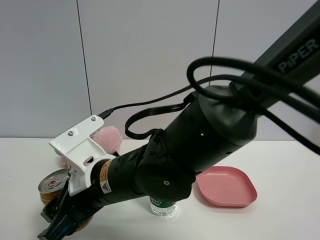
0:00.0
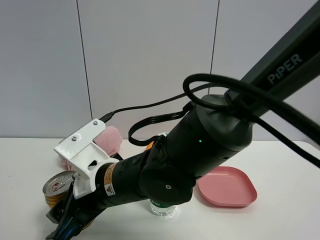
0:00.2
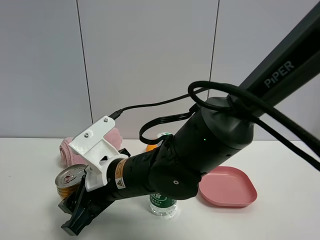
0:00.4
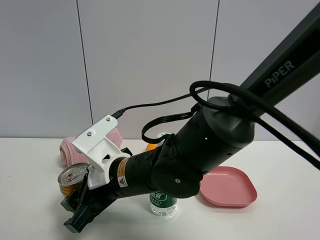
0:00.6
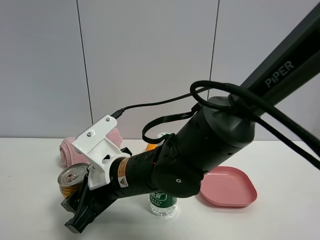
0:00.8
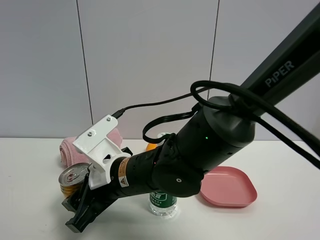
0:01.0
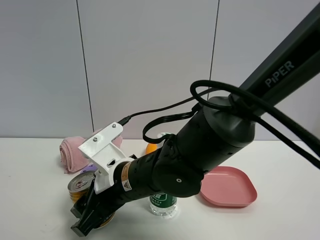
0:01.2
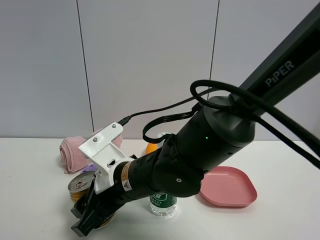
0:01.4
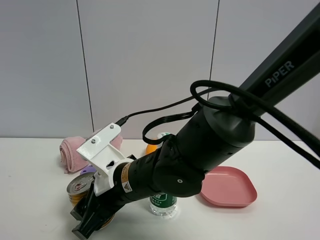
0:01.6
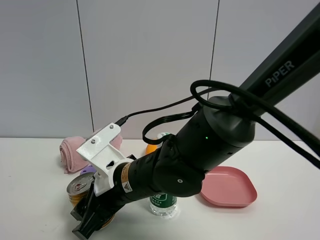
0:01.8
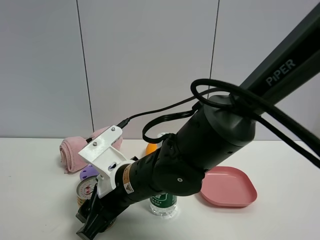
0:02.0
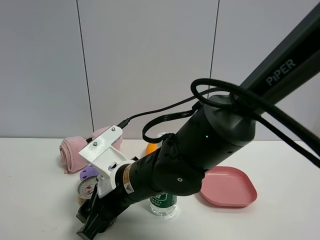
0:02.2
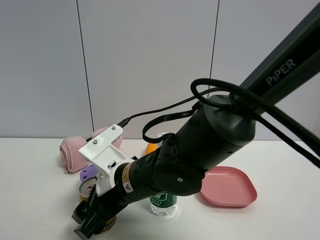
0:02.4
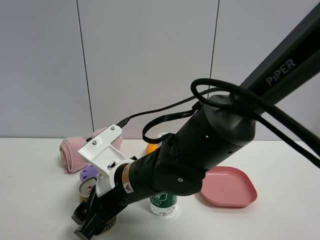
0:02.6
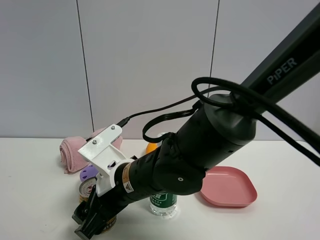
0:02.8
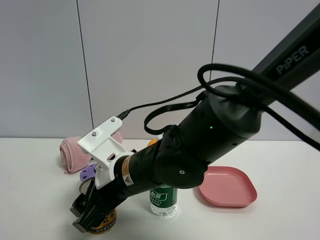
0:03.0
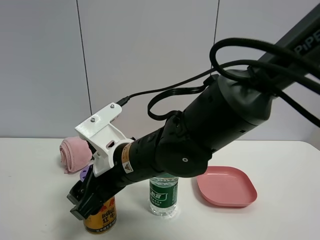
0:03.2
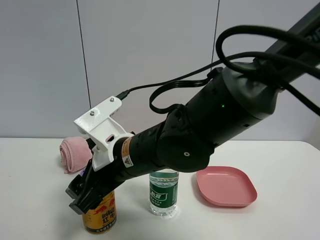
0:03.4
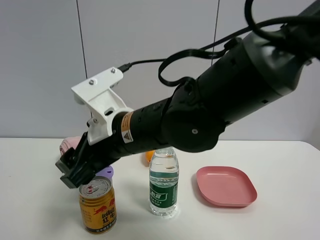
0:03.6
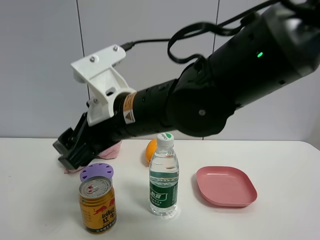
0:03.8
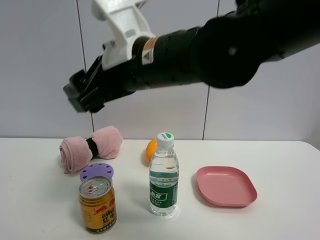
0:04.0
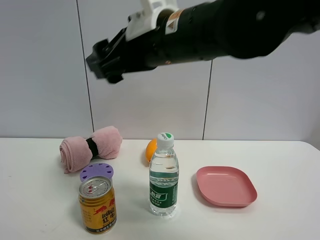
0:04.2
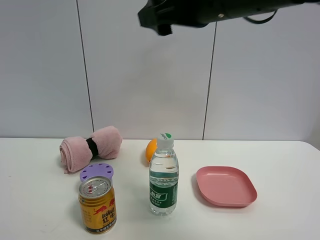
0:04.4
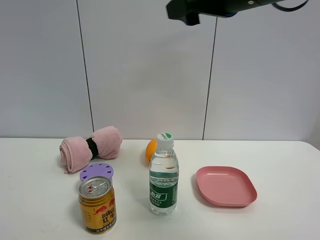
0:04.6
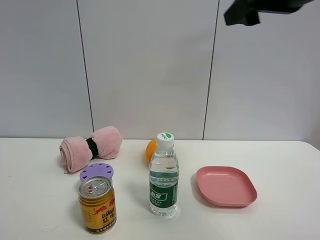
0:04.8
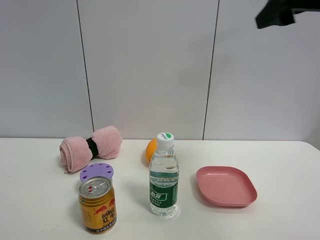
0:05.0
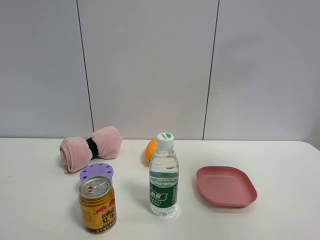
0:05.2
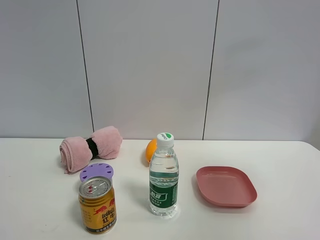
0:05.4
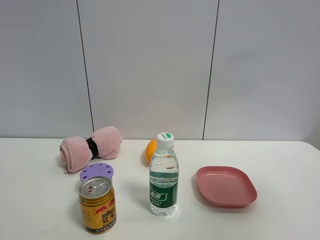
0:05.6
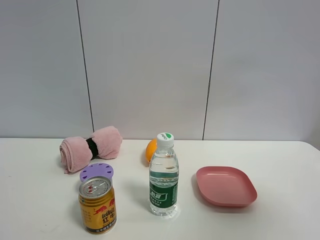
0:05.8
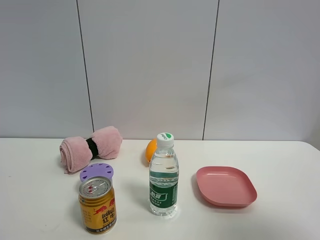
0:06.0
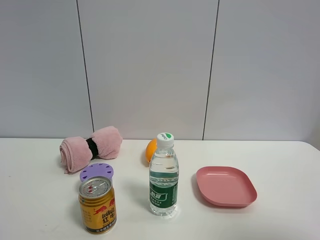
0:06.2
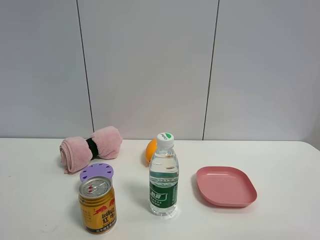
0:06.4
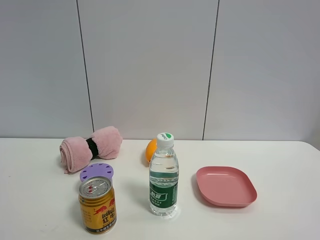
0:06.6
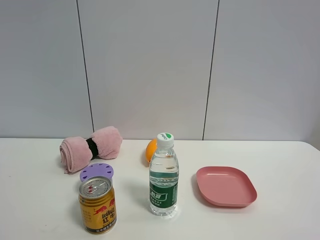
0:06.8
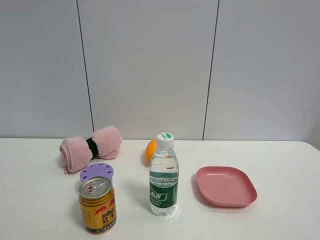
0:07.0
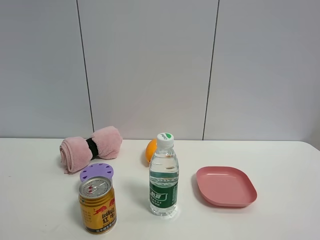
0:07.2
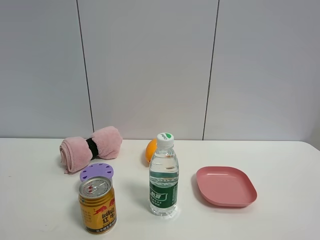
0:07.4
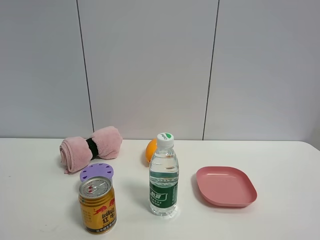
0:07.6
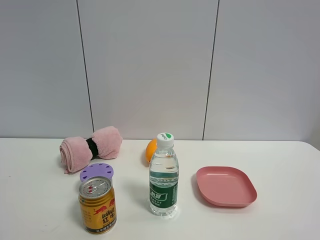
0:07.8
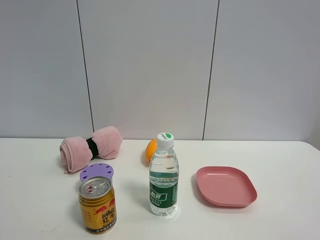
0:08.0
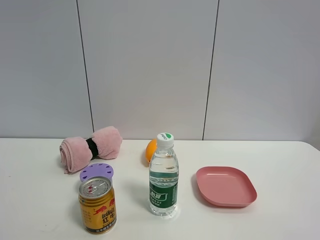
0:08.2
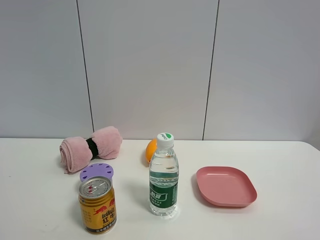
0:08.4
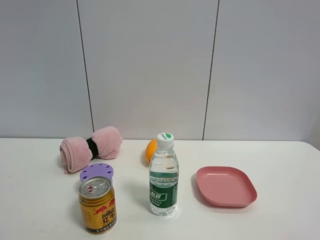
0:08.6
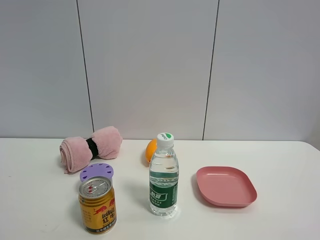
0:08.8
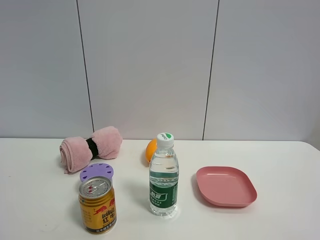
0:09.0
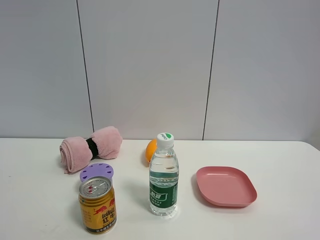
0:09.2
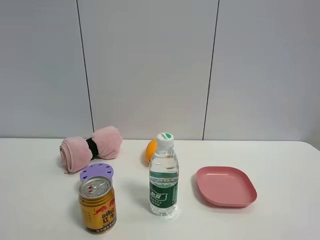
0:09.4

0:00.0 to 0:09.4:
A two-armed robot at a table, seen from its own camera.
Task of the whole recording: the gripper move the object.
Step, 0:00.0 to 0:03.0: Place the red bull on the table with the right gripper.
0:03.2 to 0:04.8: The right gripper shifts about 35 cm upward and to the right.
0:04.8 to 0:06.2: The right gripper travels backward and to the right by some 25 cm.
0:06.2 to 0:07.8: The right gripper moves downward, about 10 cm, and opens its fingers.

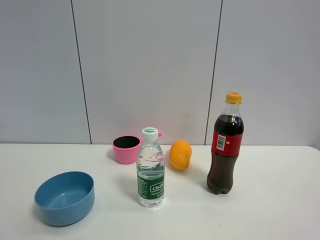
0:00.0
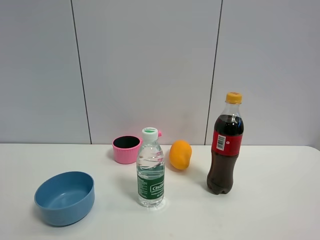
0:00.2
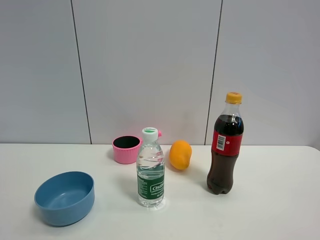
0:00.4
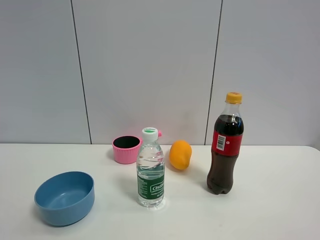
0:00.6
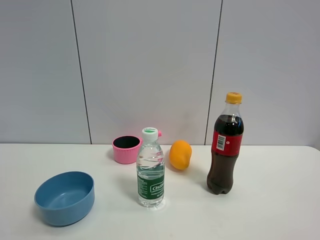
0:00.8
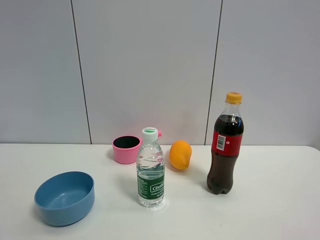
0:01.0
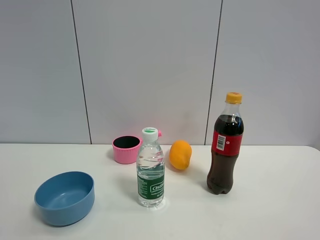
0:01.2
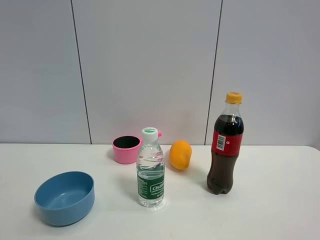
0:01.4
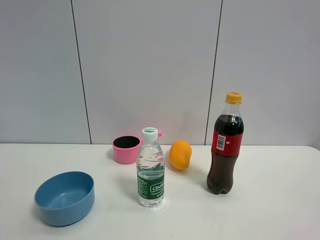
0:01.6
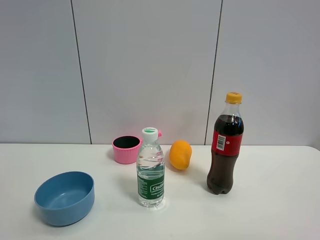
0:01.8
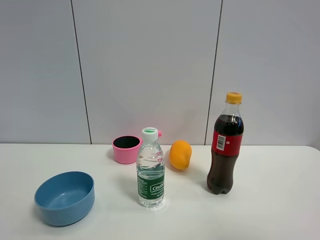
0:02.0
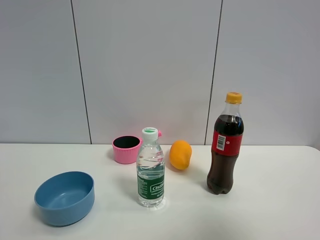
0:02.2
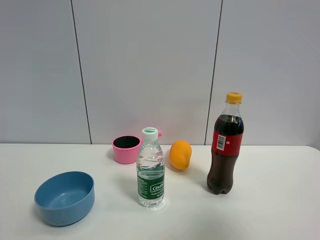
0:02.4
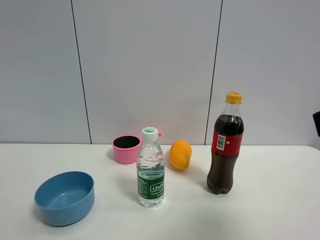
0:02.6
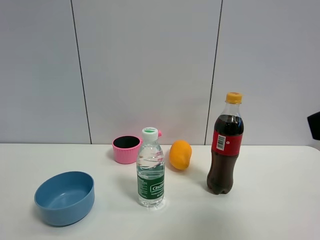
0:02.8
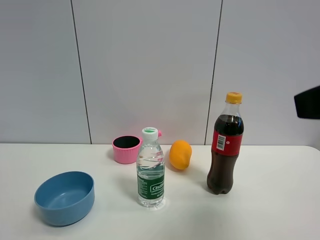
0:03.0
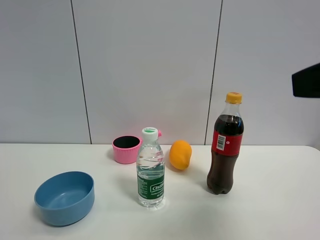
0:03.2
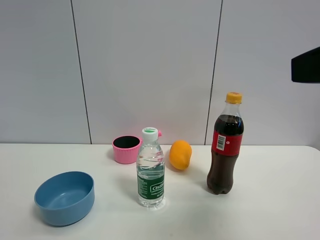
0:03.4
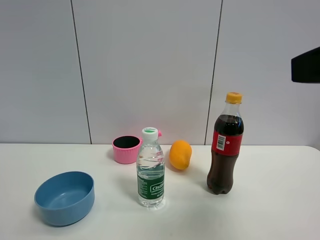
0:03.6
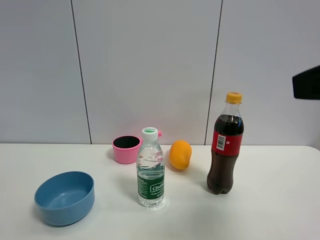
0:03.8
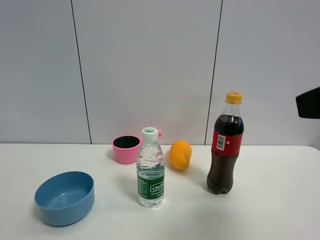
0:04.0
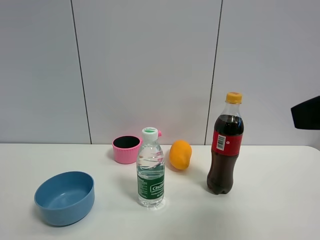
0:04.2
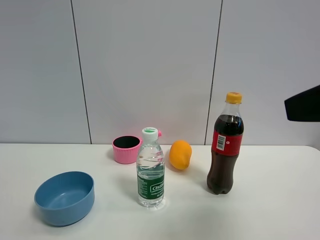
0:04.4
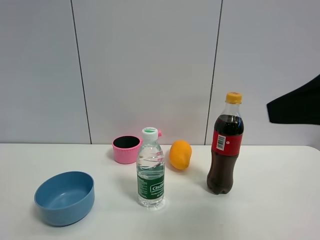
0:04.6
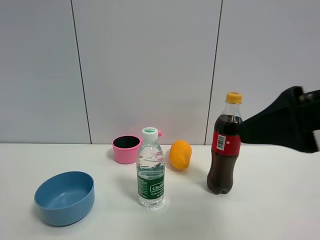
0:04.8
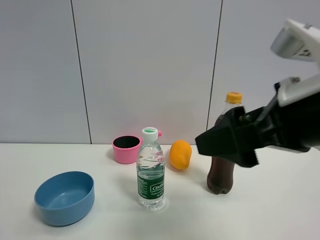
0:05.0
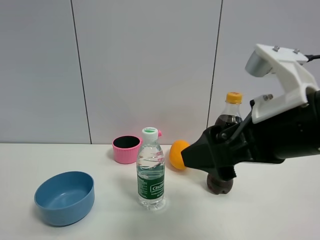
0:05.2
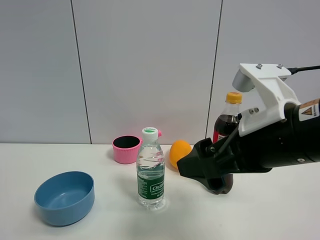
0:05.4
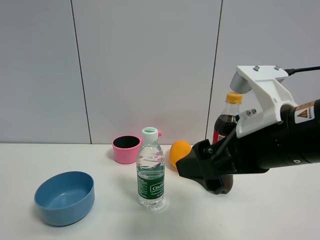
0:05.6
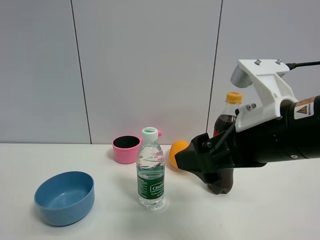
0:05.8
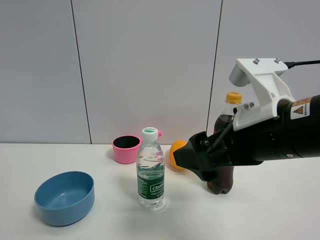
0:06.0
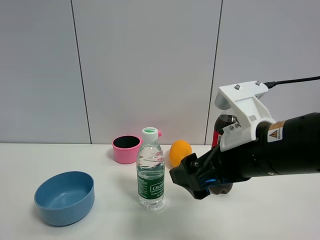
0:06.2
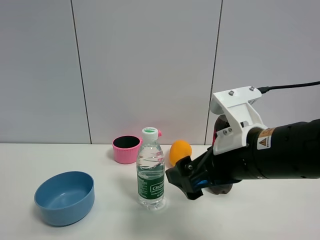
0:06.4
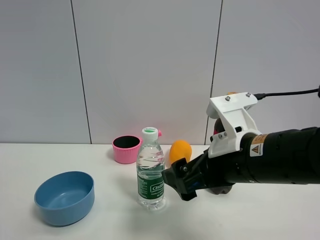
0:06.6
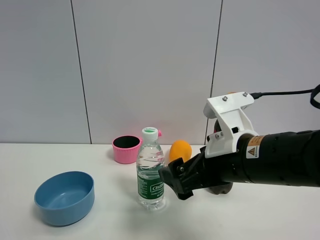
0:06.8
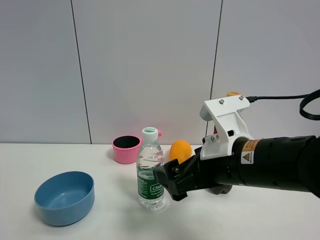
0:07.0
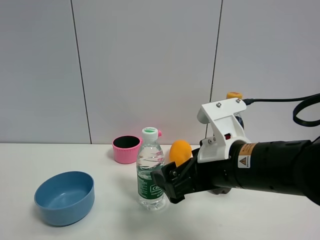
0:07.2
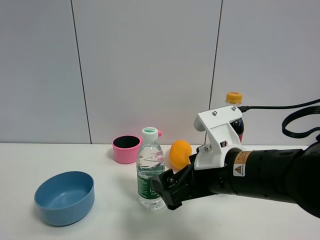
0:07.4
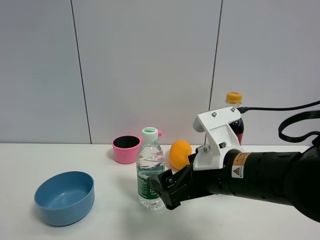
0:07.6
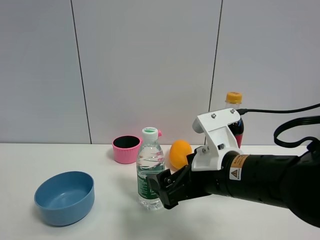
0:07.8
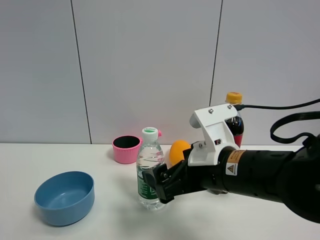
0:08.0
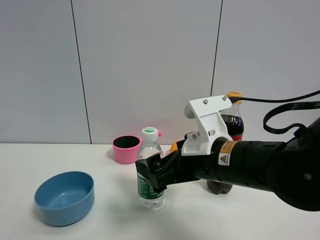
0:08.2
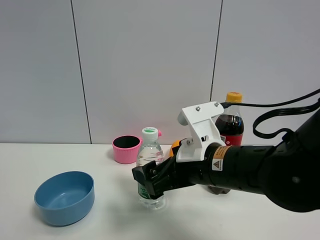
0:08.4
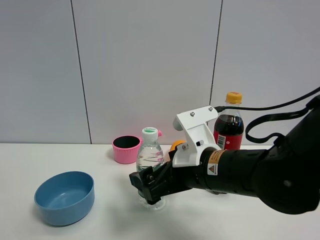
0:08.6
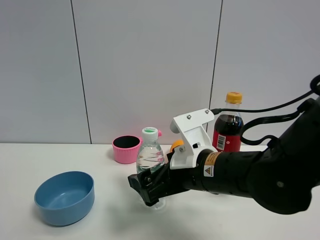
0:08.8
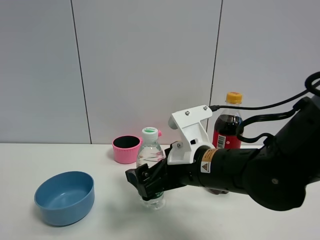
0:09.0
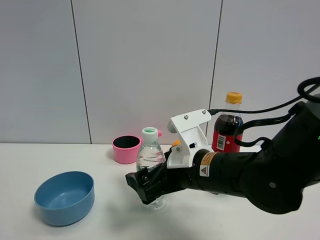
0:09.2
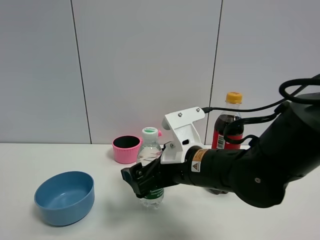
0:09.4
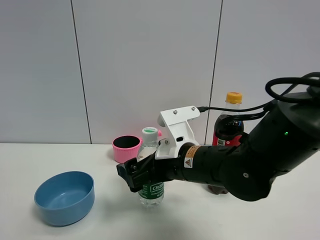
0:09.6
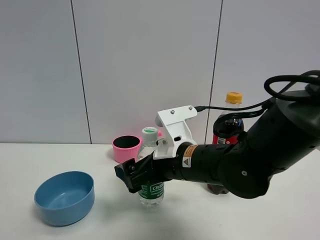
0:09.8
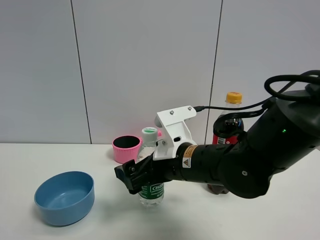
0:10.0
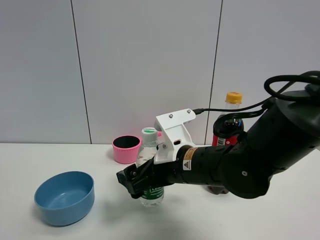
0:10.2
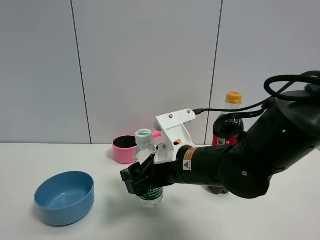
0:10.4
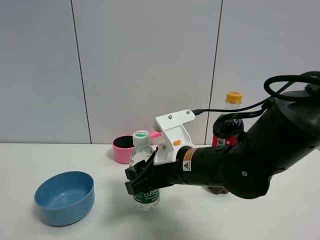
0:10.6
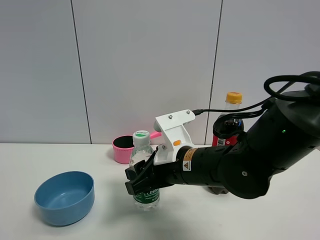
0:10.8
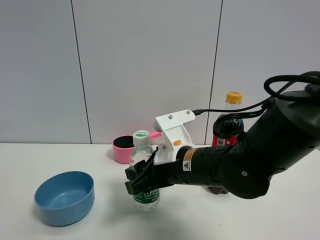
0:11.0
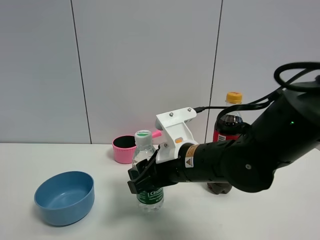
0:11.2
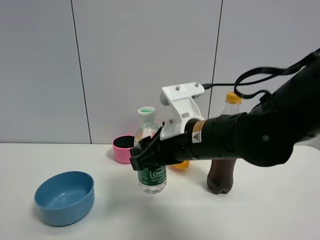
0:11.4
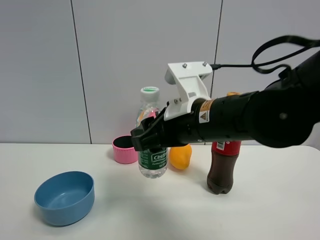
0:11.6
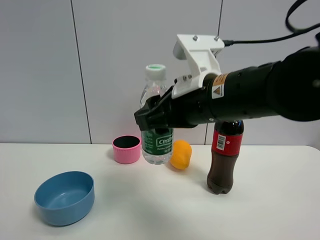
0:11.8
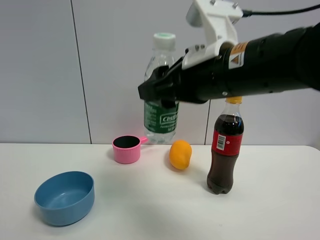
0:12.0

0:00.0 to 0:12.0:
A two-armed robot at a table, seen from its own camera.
Task of the whole recording: the gripper move the object.
Step, 0:00.0 to 0:10.4: Grasp the YiBao mineral water with the right gripper.
0:01.6 to 0:03.0: The right gripper shifts some 15 cm forward.
0:04.4 to 0:06.0: The right gripper heads to the left, downward and forward, covering some 15 cm.
0:06.0 to 0:07.6: The right gripper goes roughly 10 cm downward.
0:07.6 to 0:09.0: There are only small adjustments of the grippers.
0:09.0 to 0:10.4: The right gripper closes.
0:10.4 to 0:12.0: The right gripper is displaced upward by roughly 15 cm, and closes.

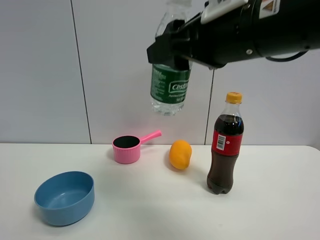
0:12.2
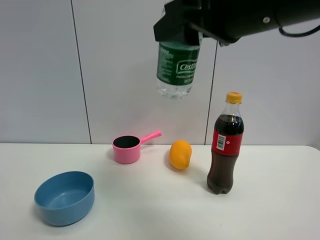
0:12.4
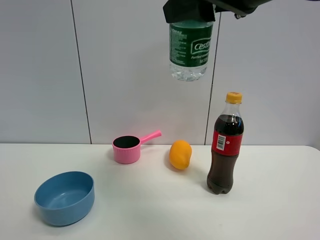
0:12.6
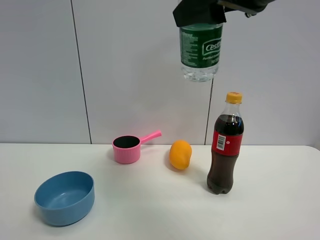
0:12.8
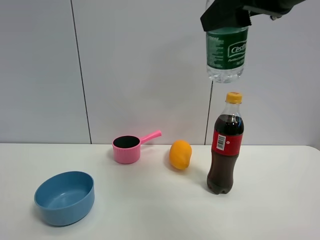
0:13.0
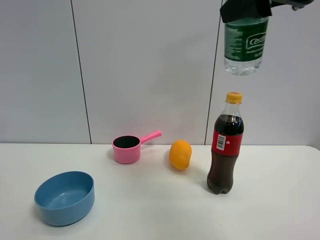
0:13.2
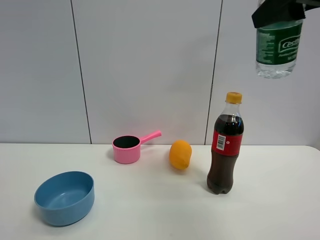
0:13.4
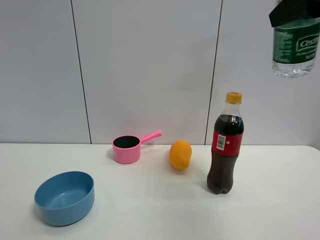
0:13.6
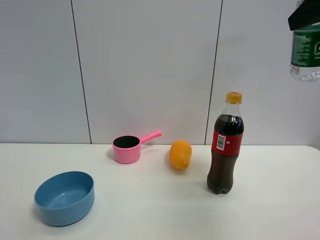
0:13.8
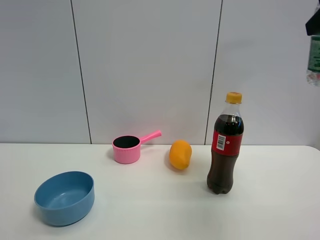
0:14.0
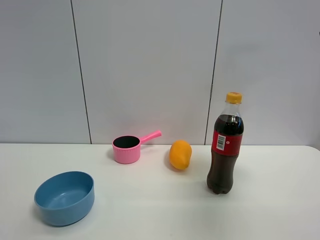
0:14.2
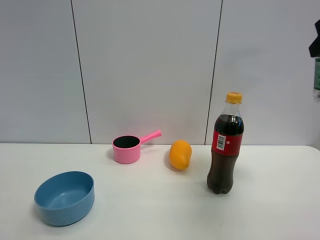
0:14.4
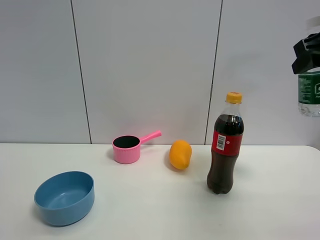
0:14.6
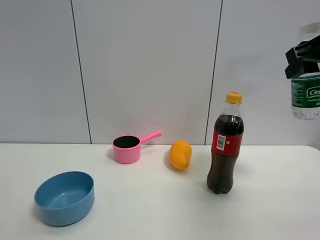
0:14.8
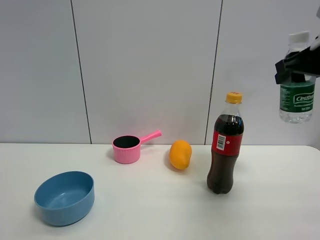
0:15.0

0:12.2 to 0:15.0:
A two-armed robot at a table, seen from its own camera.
Task of the whole recording: the gripper move the object.
0:12.2 to 0:13.6: The right gripper moves to the right and upward, some 15 cm.
0:13.6 to 0:15.0: The right gripper shifts roughly 10 cm downward and forward.
